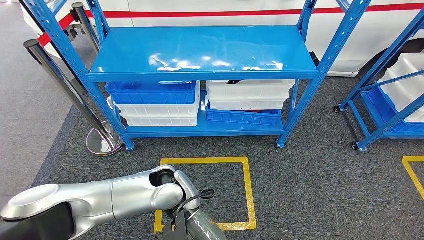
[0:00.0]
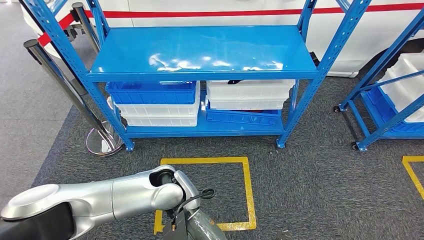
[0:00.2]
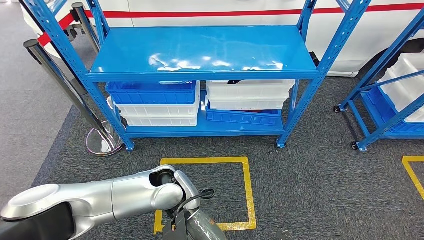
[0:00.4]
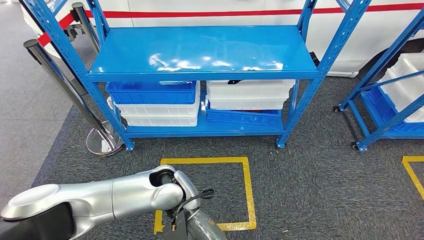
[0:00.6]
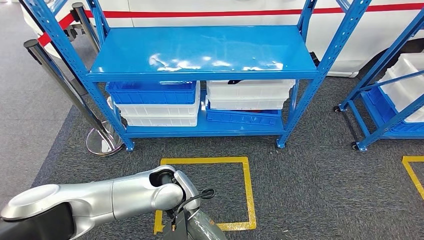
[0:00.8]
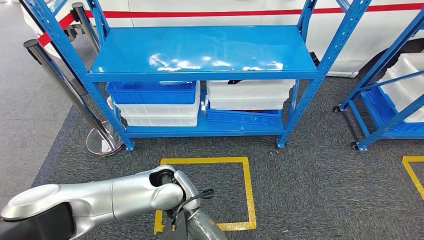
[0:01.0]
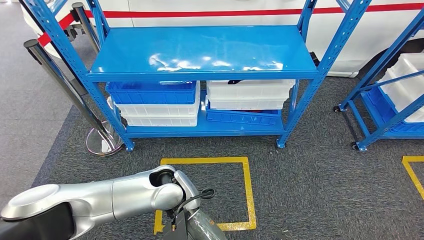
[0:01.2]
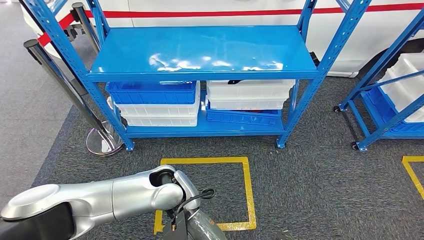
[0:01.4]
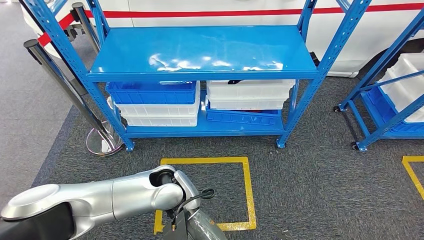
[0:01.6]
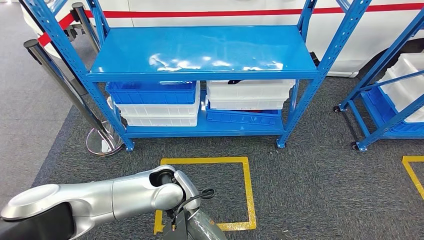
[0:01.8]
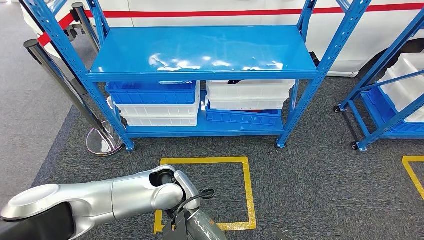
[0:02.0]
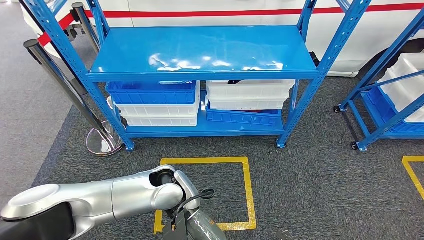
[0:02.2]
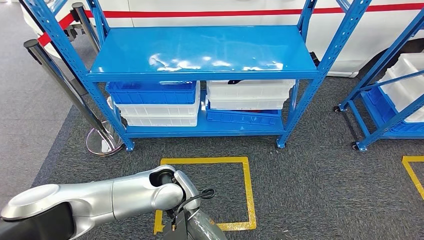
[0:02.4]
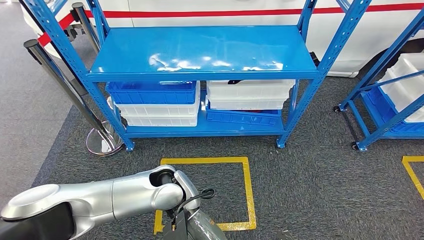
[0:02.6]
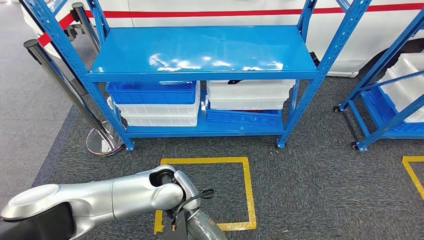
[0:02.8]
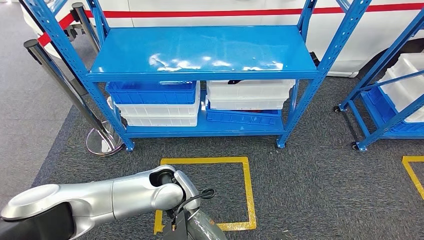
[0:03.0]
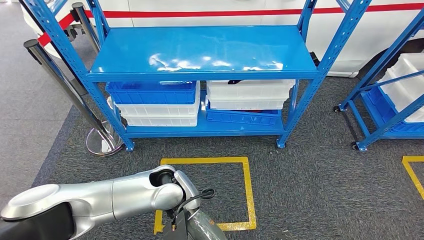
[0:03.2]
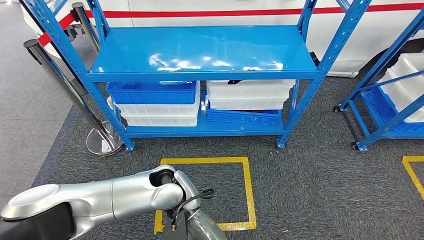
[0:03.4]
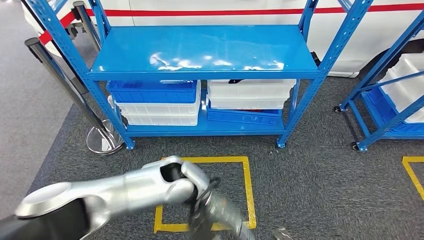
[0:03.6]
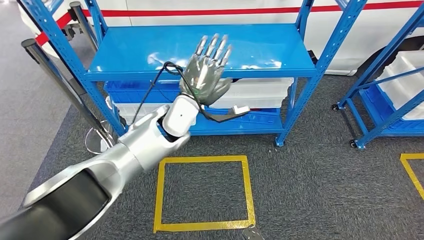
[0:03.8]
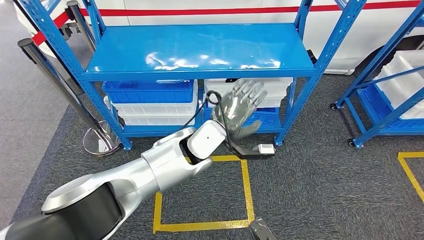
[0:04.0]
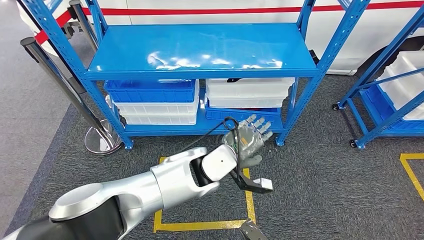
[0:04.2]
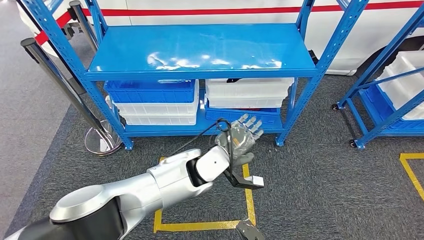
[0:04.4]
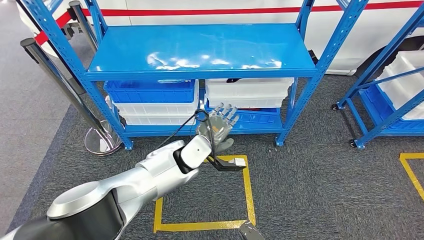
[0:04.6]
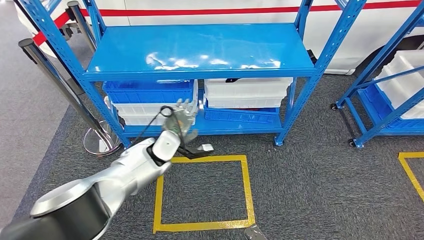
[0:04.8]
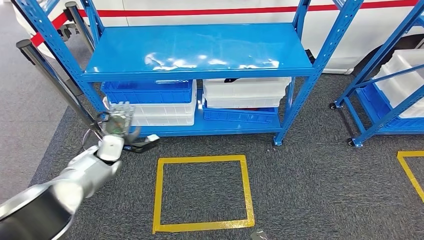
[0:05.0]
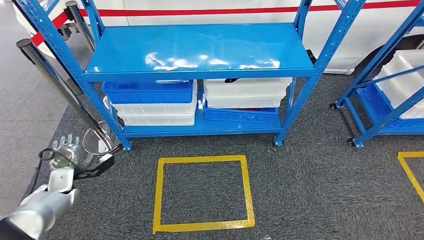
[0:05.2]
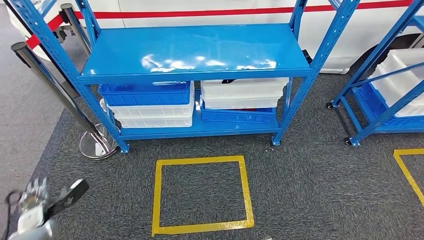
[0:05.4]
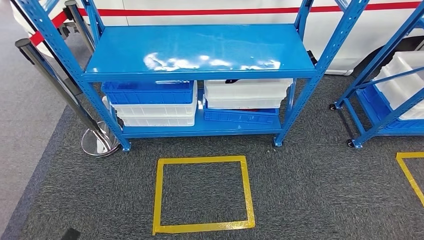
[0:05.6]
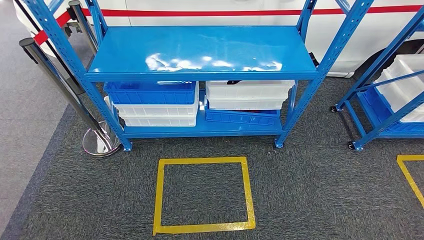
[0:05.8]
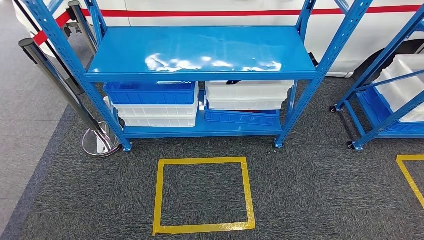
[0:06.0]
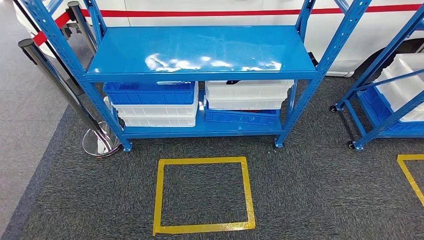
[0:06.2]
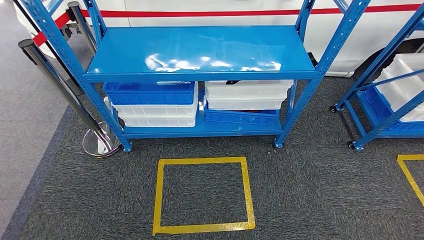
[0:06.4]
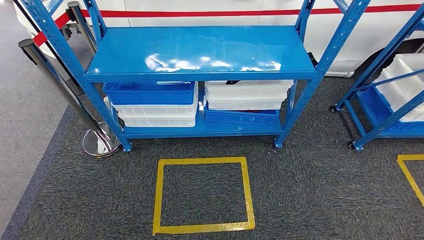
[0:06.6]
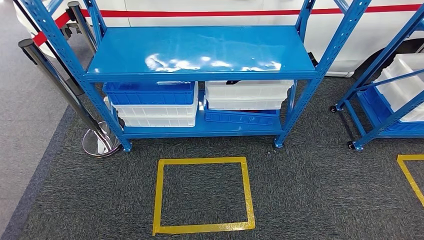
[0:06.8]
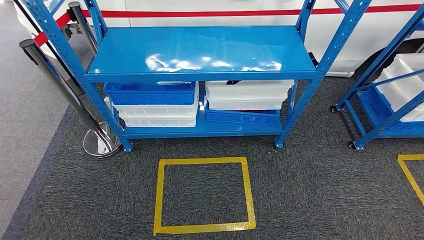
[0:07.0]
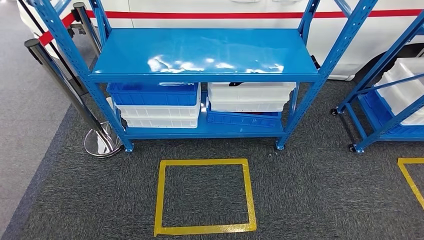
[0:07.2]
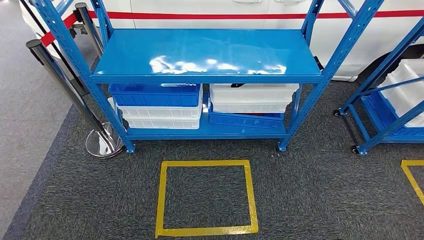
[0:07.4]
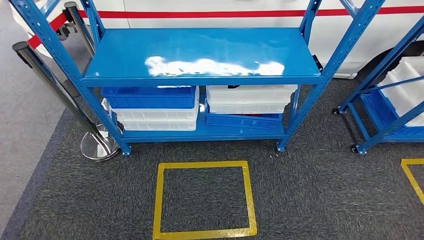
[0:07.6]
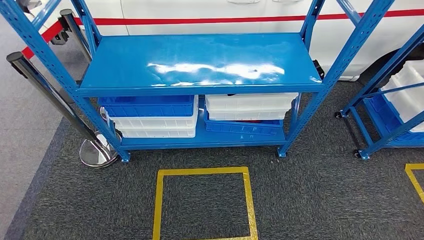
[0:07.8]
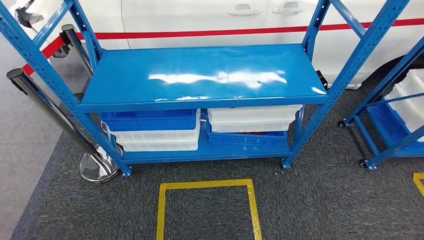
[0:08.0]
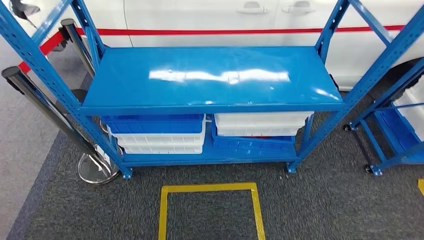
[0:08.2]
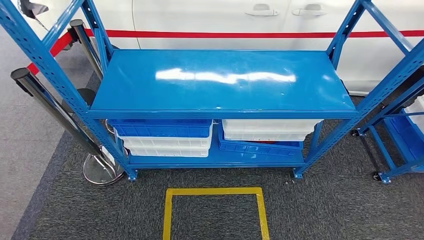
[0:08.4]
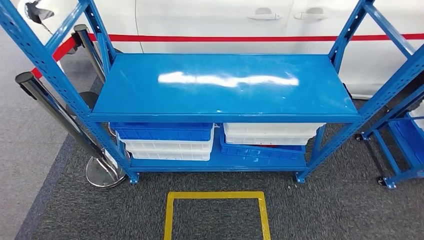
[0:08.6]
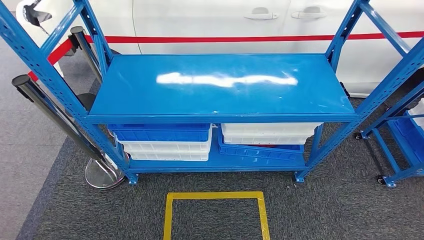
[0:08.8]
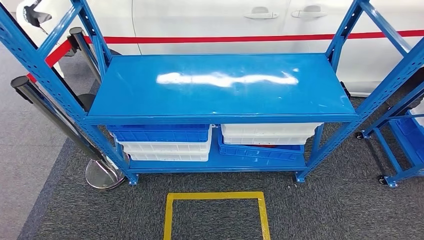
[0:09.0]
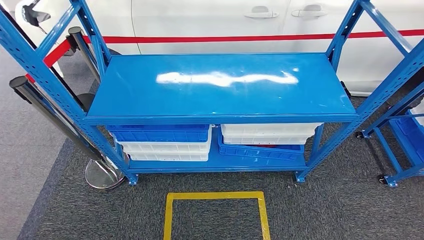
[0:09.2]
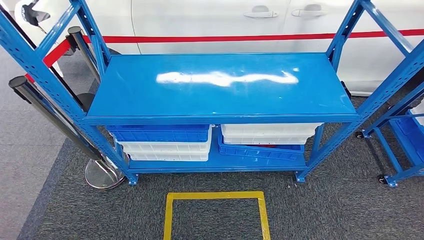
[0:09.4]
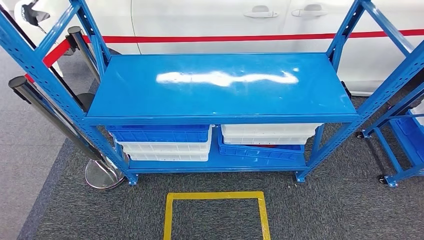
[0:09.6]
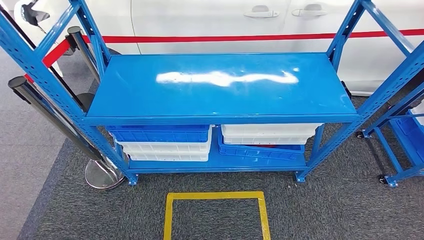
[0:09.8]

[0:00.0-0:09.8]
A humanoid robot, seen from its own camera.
Step, 0:00.0 to 0:09.8: Return to the initial position at the shelf.
0:00.0 to 0:02.8: Both hands stay put.
0:05.6 to 0:07.0: The left hand goes approximately 15 cm to the right.
